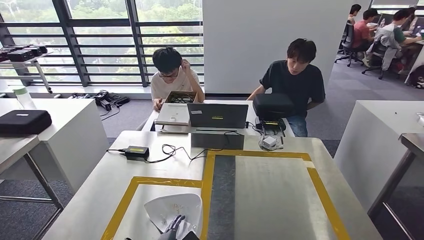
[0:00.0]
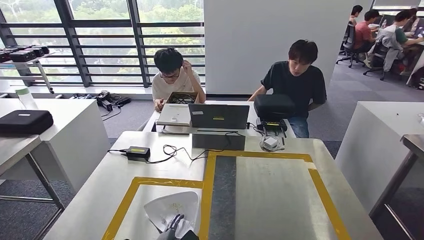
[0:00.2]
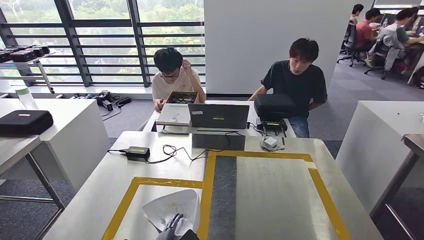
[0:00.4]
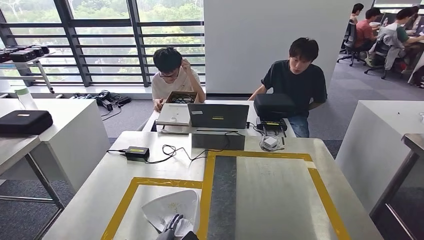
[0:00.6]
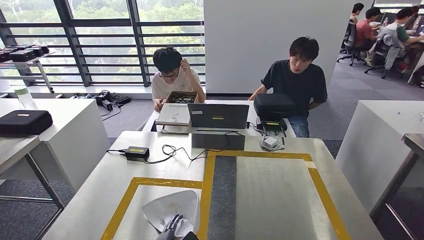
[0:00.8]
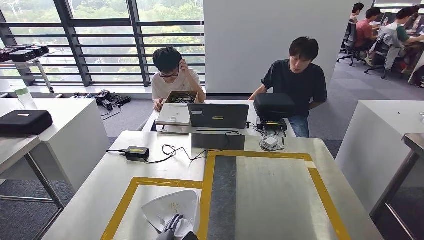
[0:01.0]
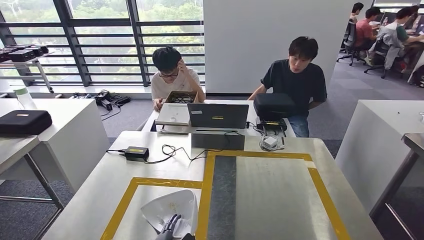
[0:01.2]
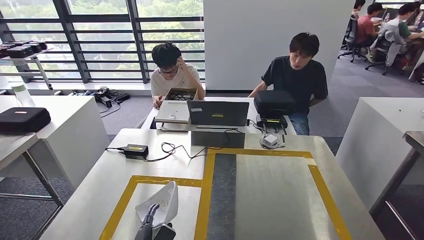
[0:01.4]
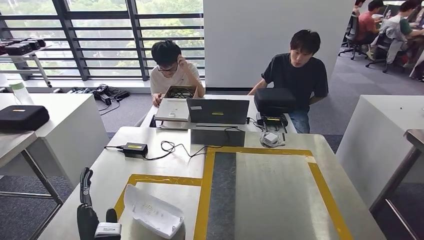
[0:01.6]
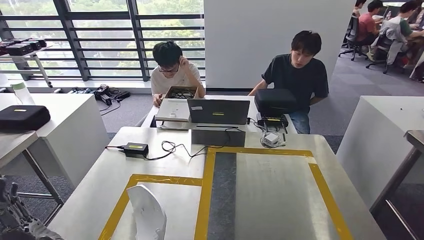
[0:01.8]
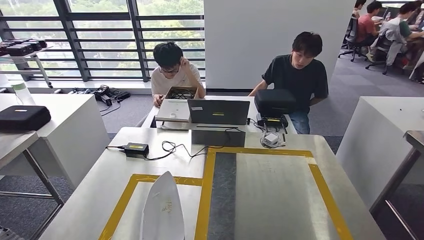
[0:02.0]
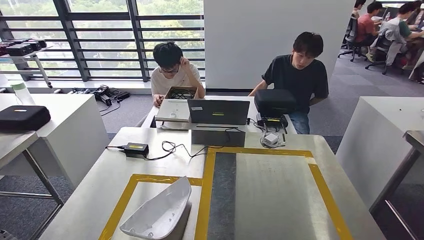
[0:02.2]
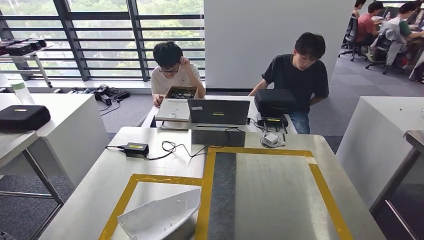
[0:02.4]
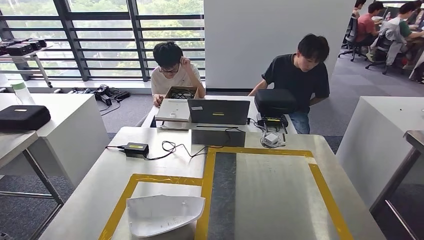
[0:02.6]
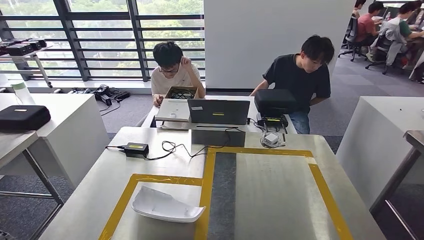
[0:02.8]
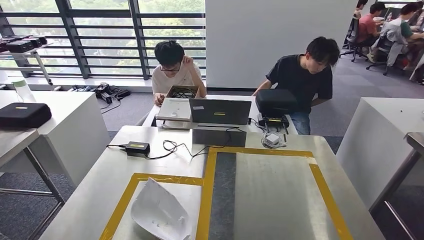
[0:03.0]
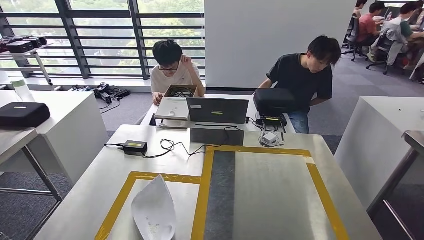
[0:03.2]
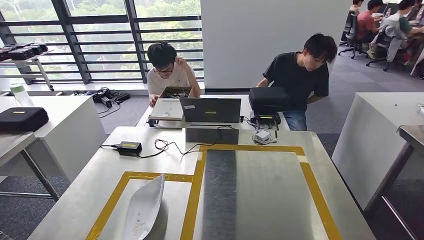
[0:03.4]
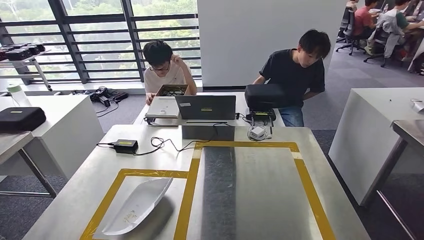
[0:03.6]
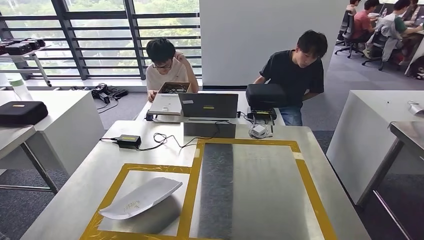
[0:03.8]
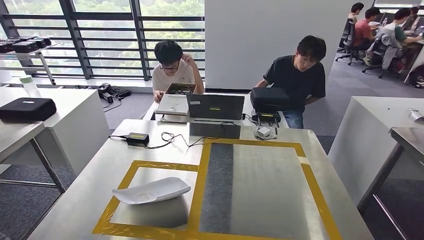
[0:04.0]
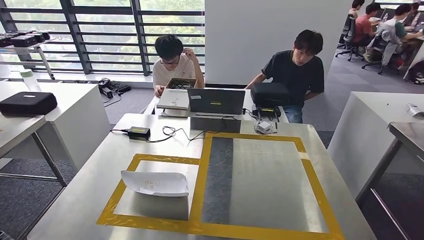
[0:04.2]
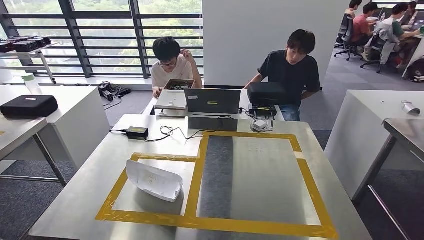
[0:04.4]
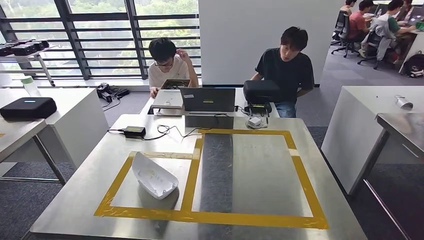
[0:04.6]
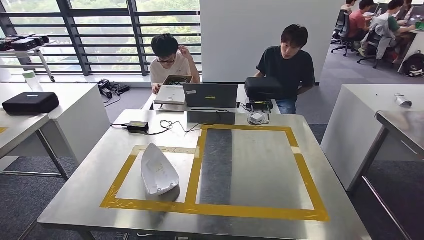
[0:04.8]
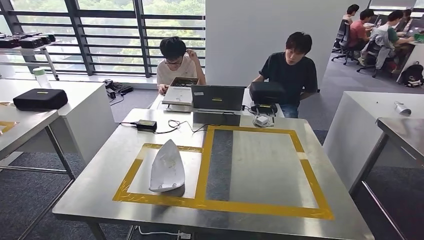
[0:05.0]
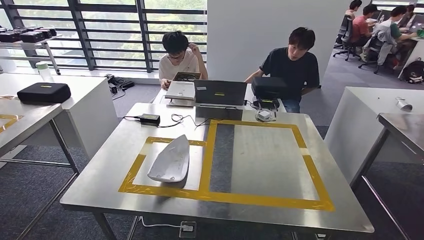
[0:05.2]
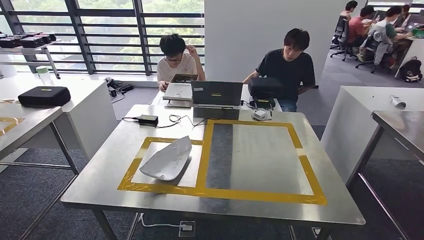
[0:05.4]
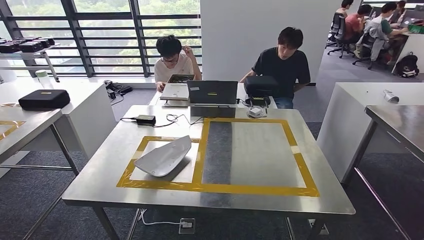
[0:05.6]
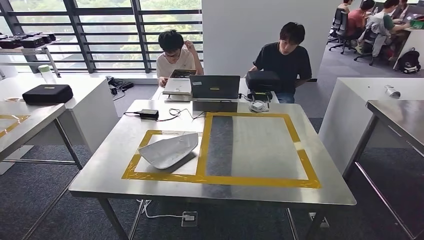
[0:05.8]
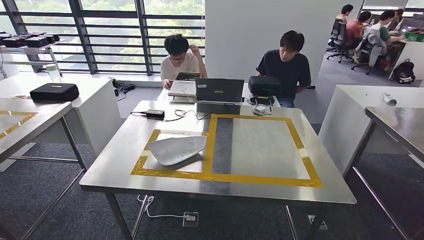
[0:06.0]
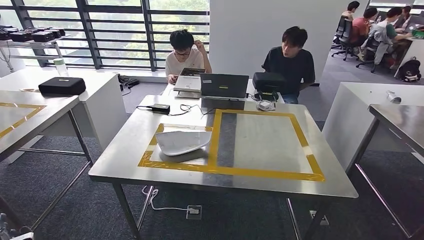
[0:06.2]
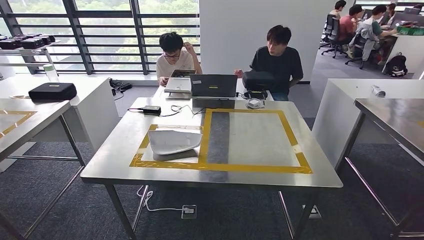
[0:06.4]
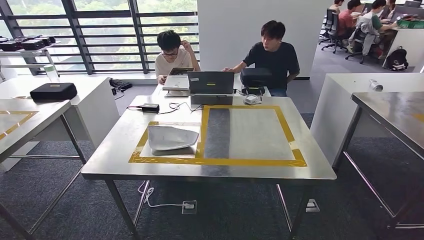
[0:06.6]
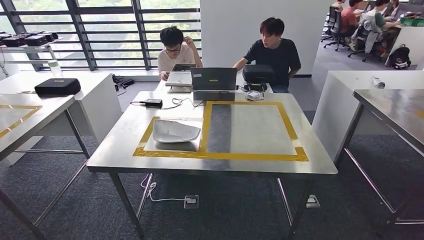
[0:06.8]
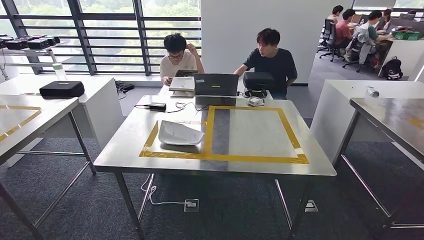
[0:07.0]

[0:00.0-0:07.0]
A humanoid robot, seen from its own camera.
Step, 0:01.0 to 0:07.0: Move to the initial position at the workbench.
